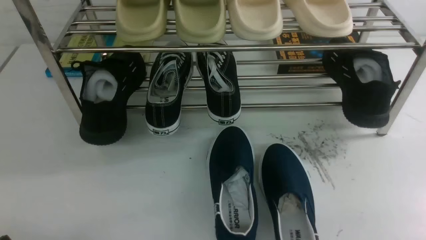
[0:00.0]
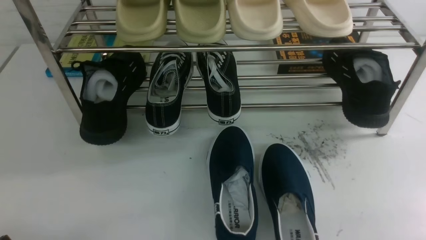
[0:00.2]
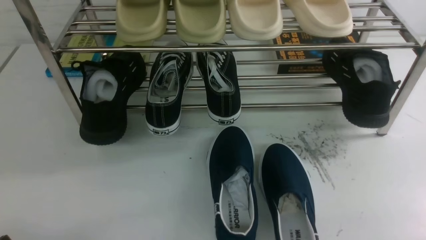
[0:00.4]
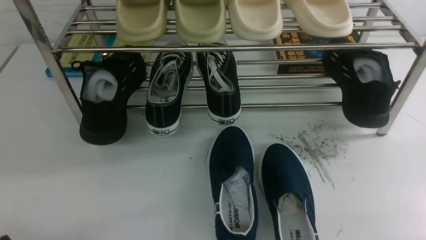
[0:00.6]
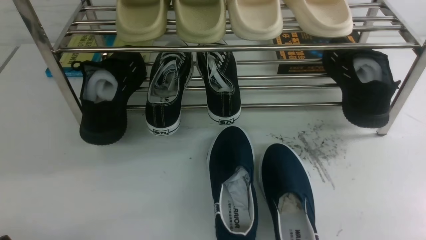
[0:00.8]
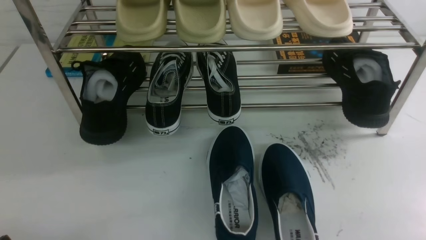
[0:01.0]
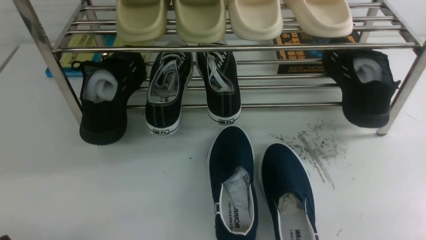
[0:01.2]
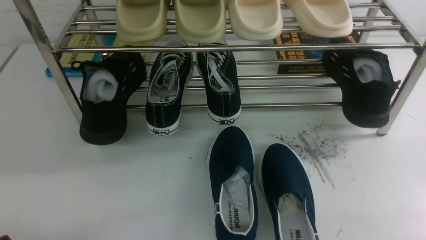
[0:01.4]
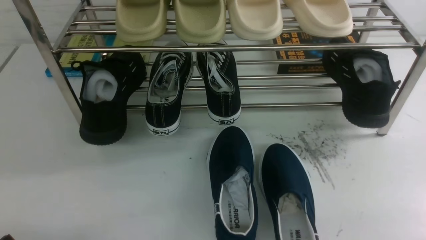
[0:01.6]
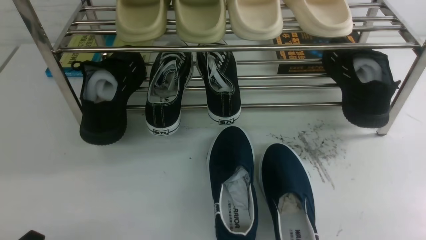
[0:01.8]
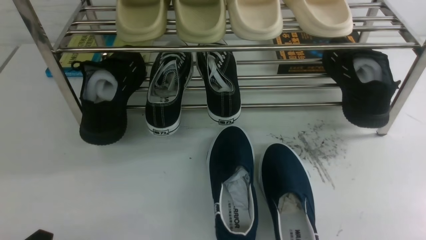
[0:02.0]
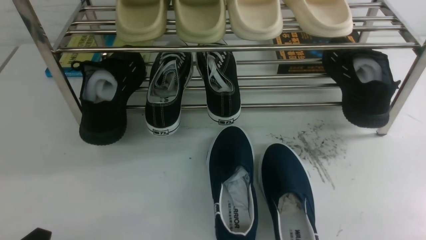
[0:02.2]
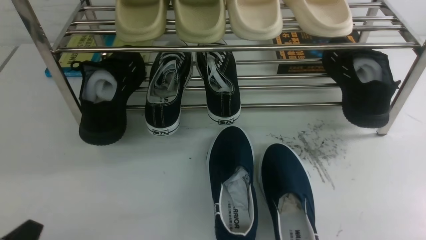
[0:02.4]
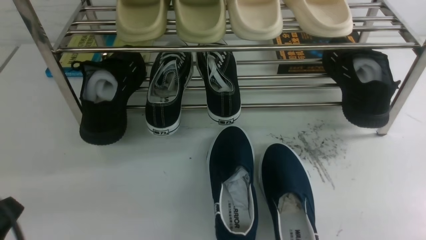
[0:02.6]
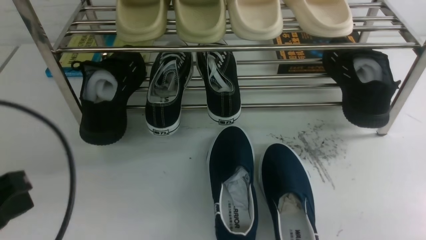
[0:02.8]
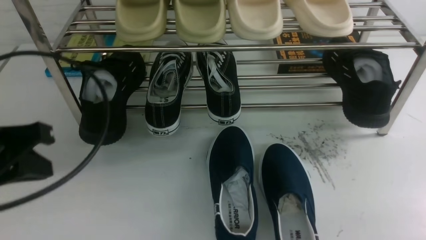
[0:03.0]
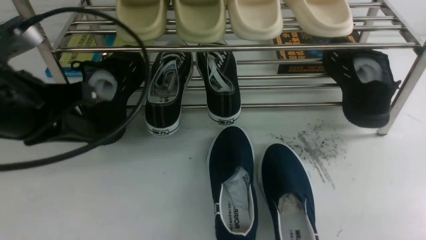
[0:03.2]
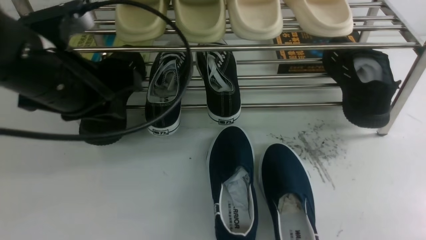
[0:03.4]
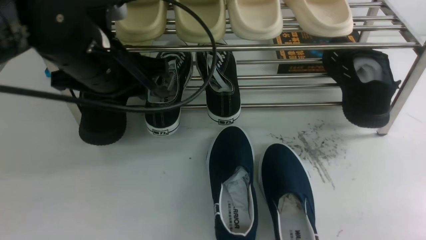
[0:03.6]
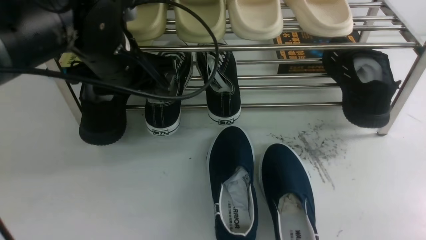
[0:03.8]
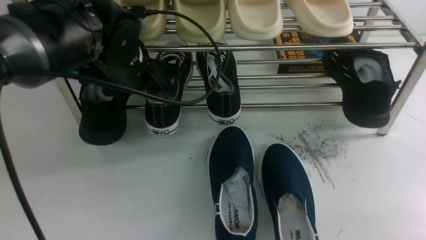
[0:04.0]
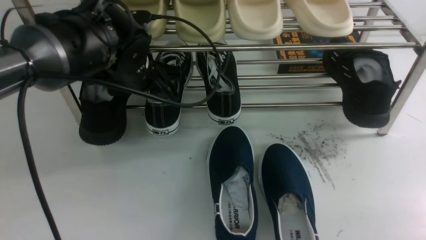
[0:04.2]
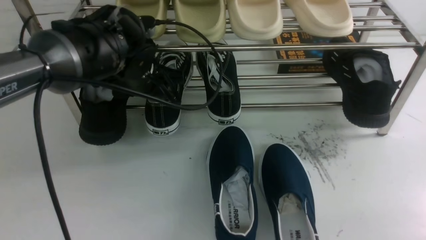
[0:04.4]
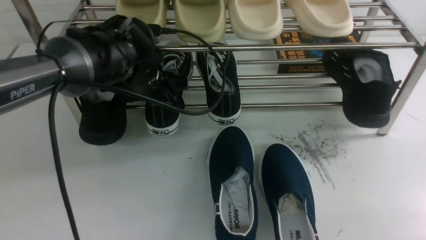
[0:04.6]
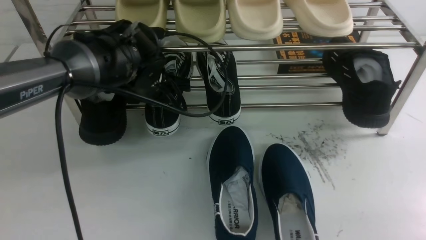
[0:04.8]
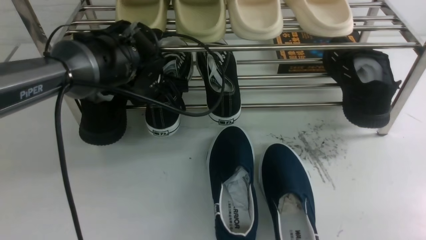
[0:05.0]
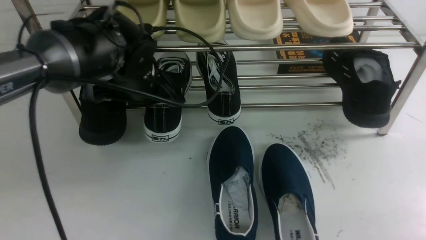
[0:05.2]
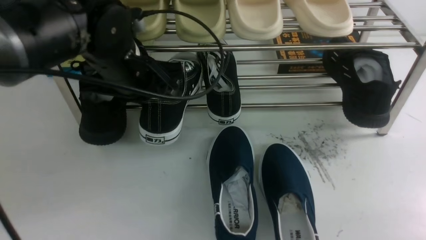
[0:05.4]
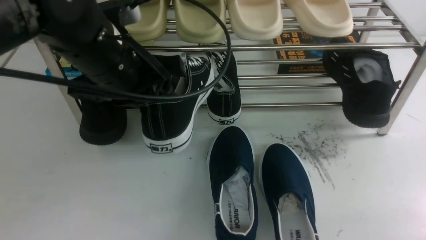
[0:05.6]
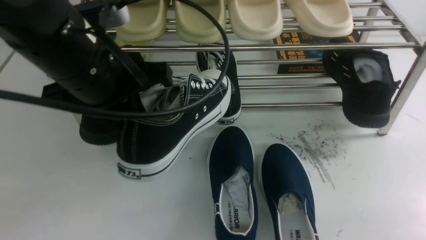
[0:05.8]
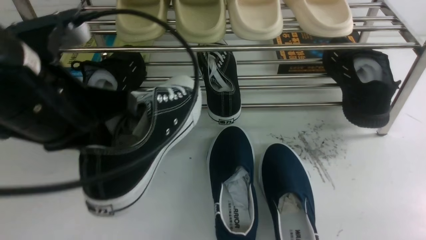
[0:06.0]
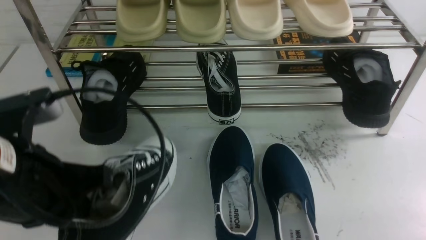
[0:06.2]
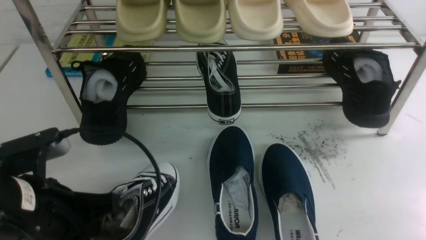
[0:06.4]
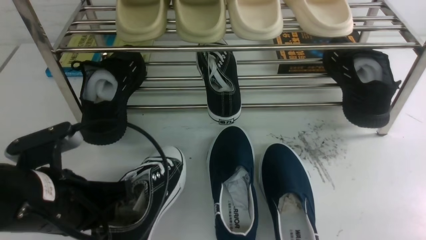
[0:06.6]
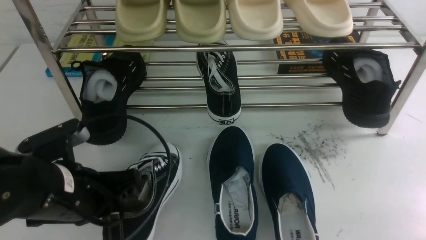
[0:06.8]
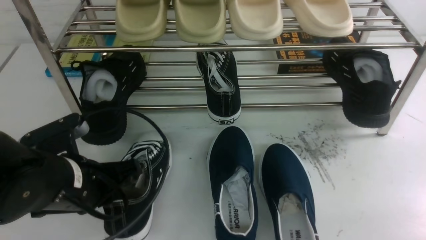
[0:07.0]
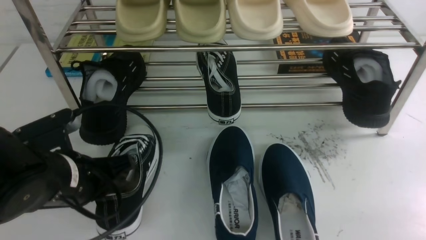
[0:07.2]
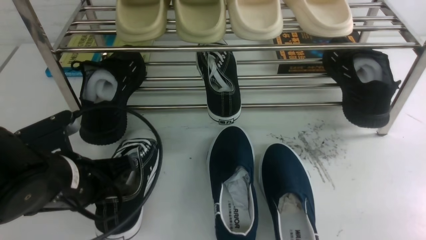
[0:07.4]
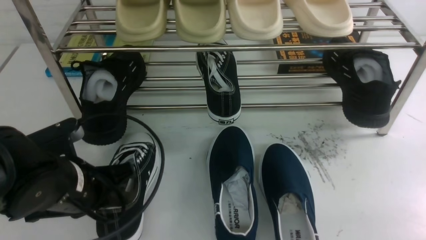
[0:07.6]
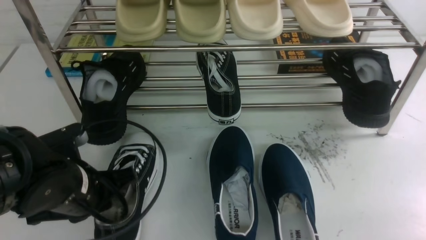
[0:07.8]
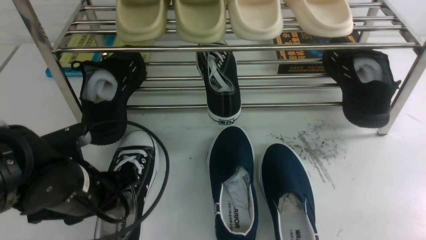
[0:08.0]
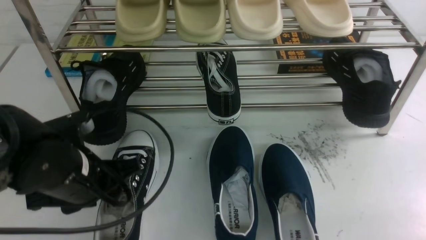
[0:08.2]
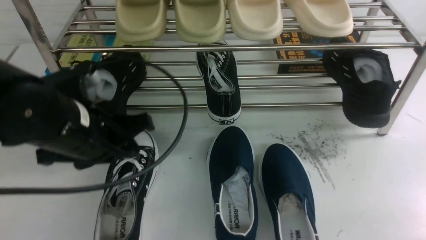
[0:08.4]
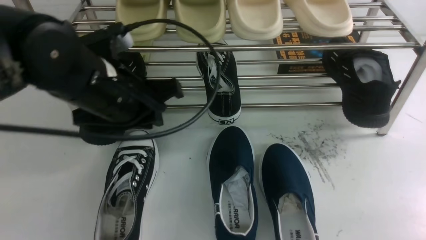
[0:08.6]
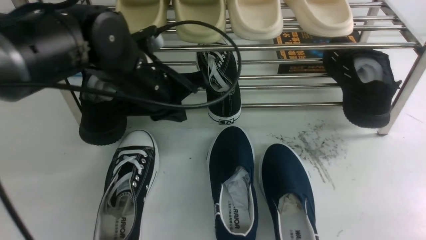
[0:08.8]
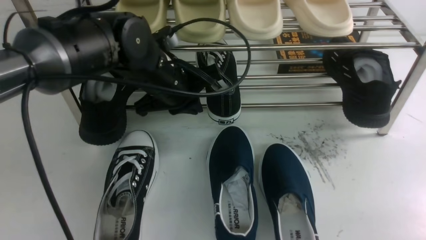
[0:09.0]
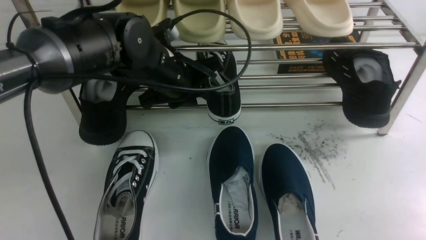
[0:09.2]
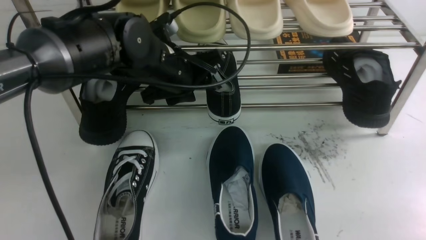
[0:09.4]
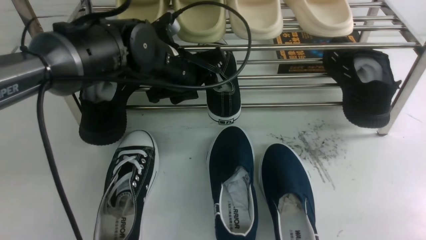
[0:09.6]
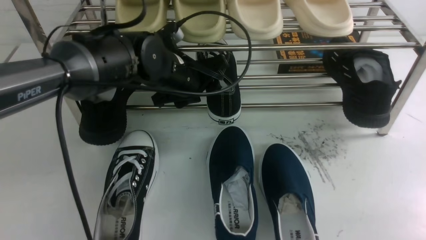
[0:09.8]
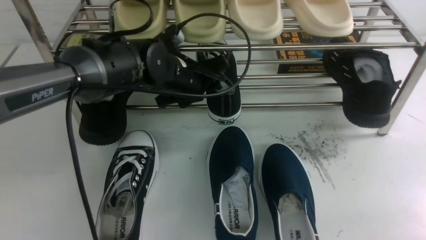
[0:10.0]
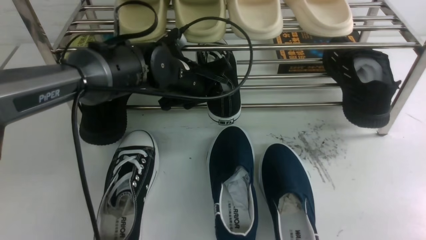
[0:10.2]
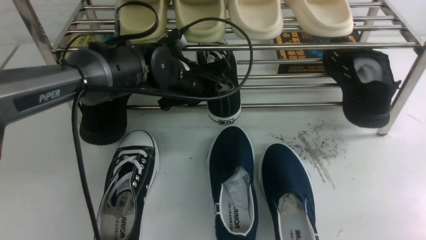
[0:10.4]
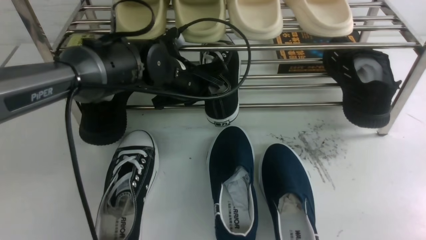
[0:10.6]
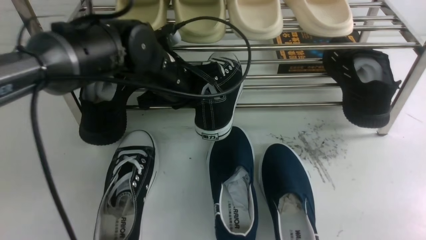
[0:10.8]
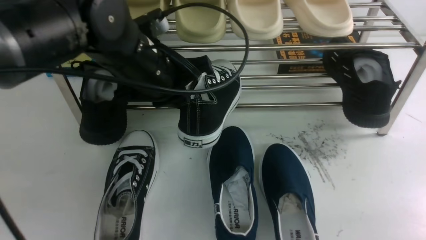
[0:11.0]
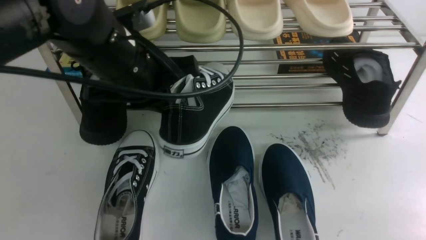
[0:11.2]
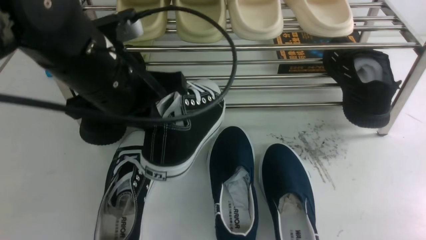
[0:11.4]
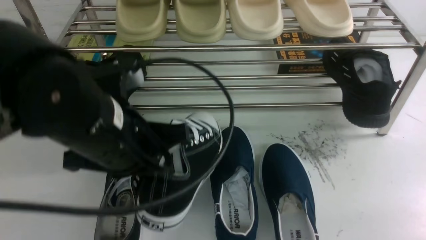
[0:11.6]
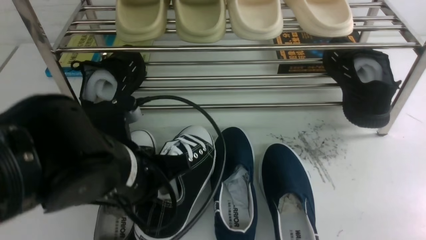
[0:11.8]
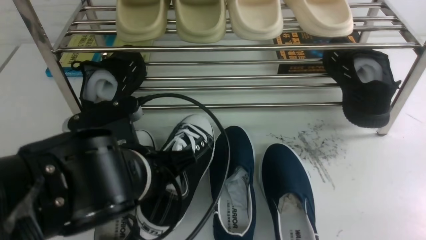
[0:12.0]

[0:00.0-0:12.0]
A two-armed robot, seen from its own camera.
Step, 0:00.0 to 0:05.2: use the left arm to clamp a shoe on the left side of the shoe rack.
Step, 0:05.6 to 0:08.0: Use your left arm to remove the clamped shoe from the shoe rack and put it down.
Step, 0:08.4 to 0:10.8: use the left arm to clamp a shoe in the middle of the shoe rack.
0:01.6 to 0:03.0: The left gripper travels upward and forward by about 20 cm, and closes its fingers.
0:03.0 to 0:04.4: The left gripper shifts roughly 25 cm forward and to the right, and opens.
0:04.4 to 0:06.0: The left gripper travels backward and upward by about 20 cm, and closes up.
0:06.0 to 0:07.6: The left gripper goes some 15 cm downward.
0:07.6 to 0:09.0: The left gripper moves forward, to the right and upward, about 20 cm, and opens and closes again.
0:09.0 to 0:10.4: The left gripper shifts by approximately 5 cm, and opens and closes again.
0:10.4 to 0:12.0: The left gripper moves backward, approximately 20 cm.

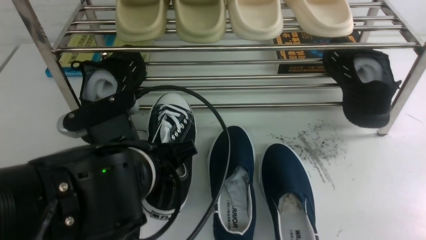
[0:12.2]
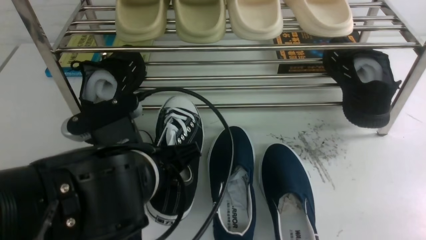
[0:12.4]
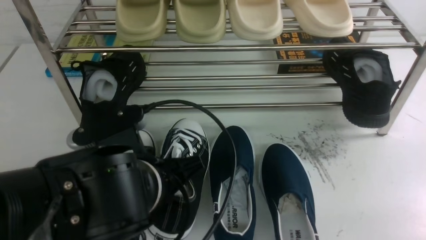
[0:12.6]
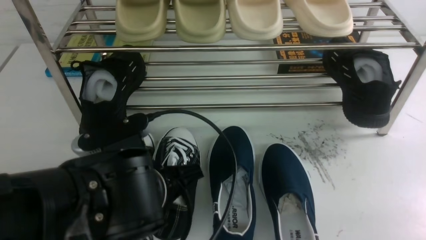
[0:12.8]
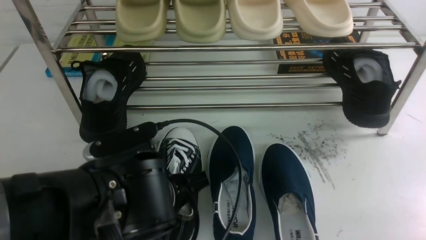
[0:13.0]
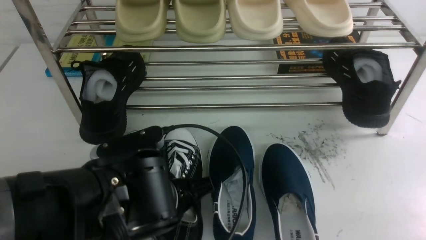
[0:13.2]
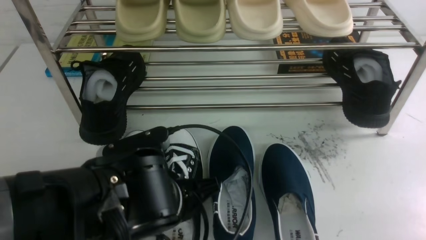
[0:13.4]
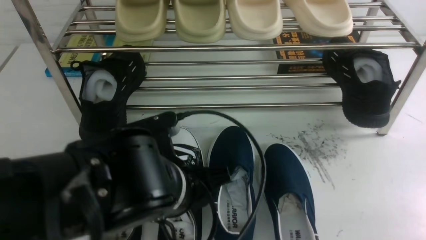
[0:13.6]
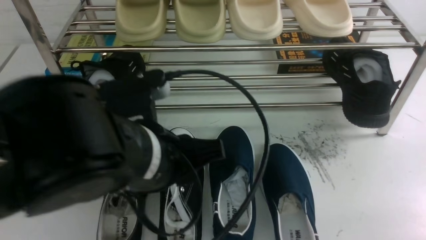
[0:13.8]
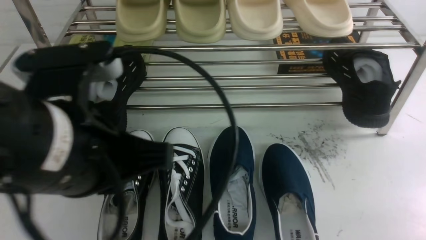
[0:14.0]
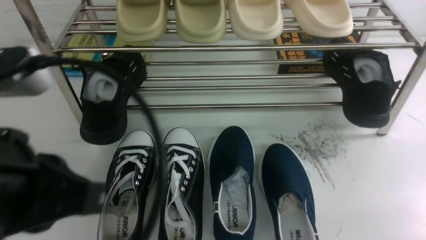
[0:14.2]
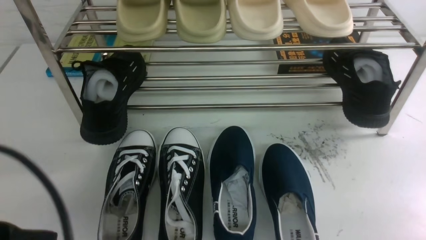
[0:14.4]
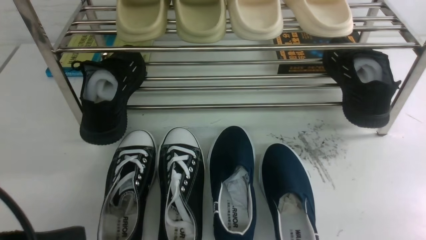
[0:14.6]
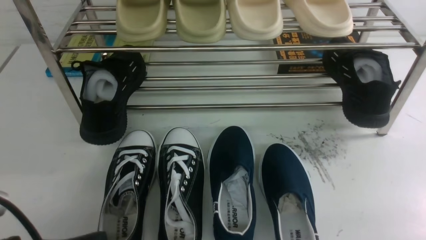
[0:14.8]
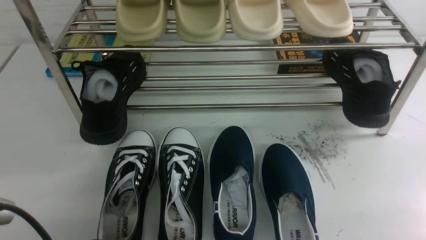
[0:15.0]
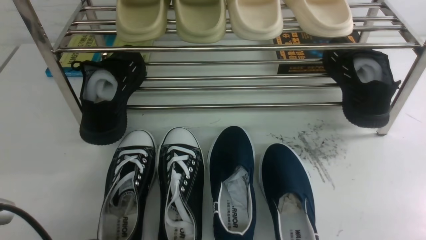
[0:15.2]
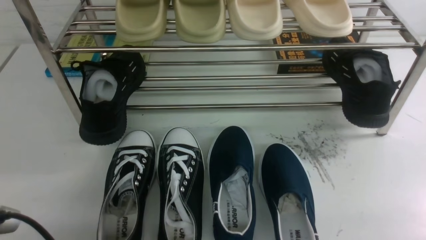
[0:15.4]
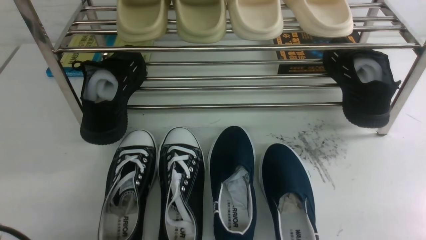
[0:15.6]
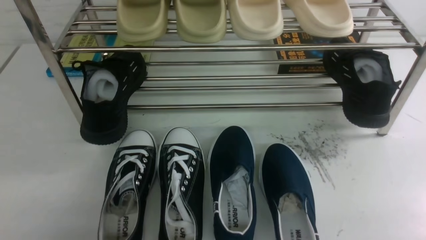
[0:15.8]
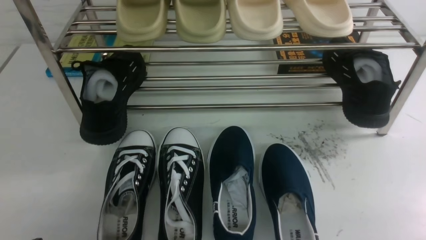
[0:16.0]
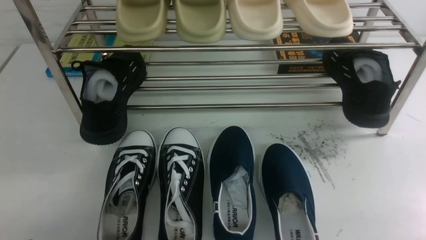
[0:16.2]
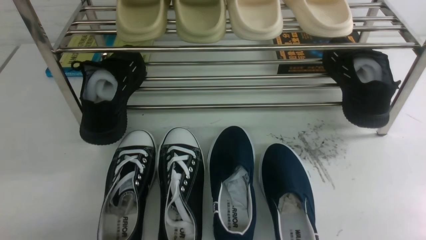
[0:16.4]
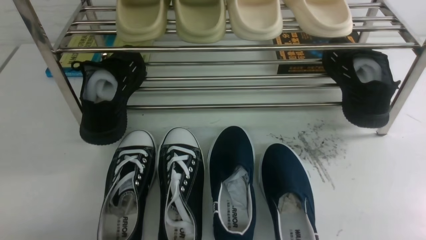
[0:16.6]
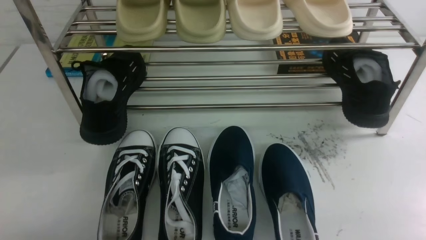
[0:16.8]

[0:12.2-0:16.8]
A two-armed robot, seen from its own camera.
Step, 0:12.2 to 0:13.6: Use your left arm to remove the clamped shoe from the shoe rack and put it down.
0:12.2 to 0:13.8: The left gripper heads upward, covering some 5 cm, and opens up.
0:13.8 to 0:15.2: The left gripper goes approximately 20 cm to the left, backward and downward, and closes up.
0:15.2 to 0:16.8: The left gripper moves downward and to the left, approximately 10 cm.
